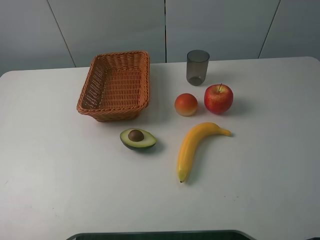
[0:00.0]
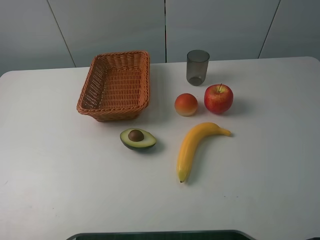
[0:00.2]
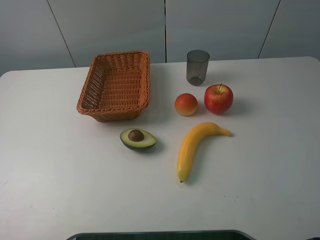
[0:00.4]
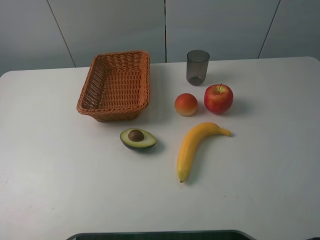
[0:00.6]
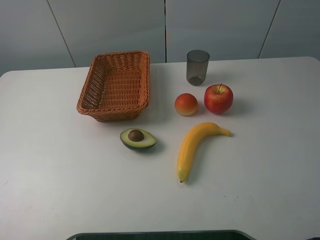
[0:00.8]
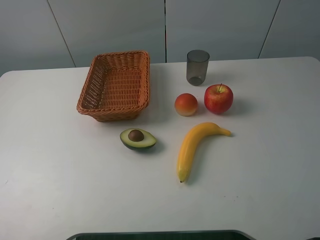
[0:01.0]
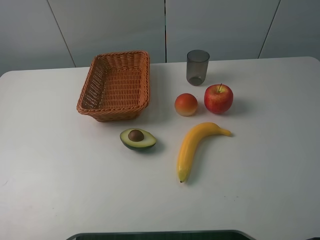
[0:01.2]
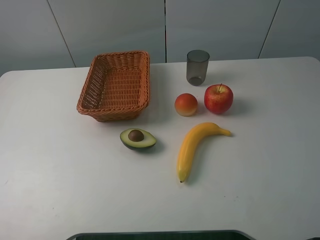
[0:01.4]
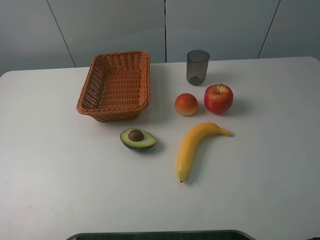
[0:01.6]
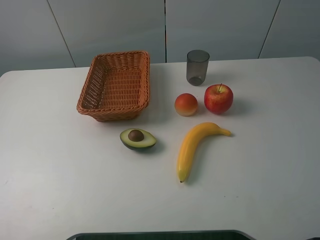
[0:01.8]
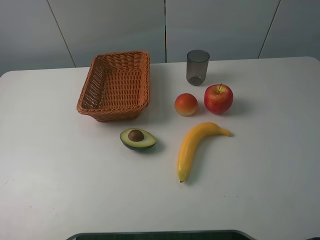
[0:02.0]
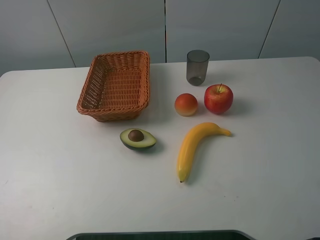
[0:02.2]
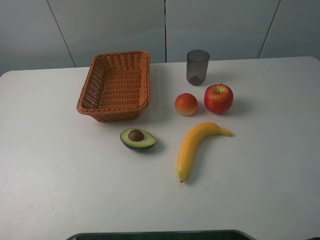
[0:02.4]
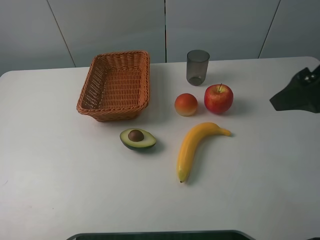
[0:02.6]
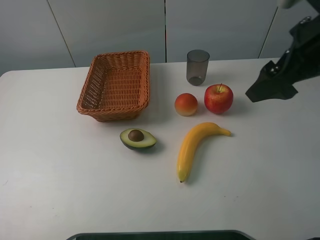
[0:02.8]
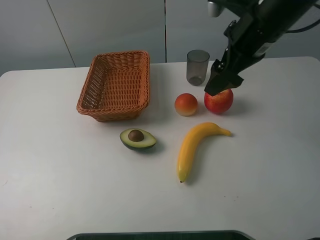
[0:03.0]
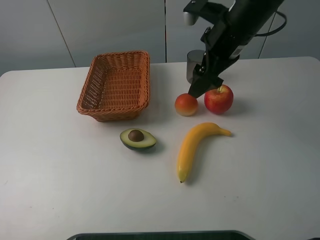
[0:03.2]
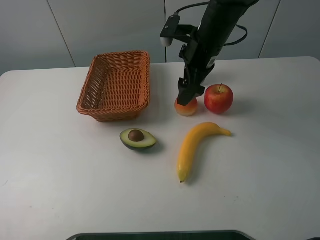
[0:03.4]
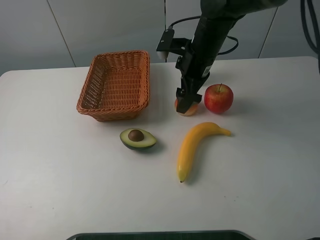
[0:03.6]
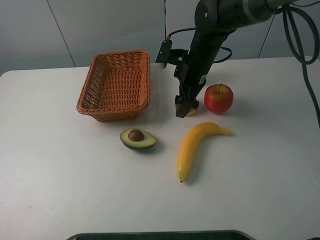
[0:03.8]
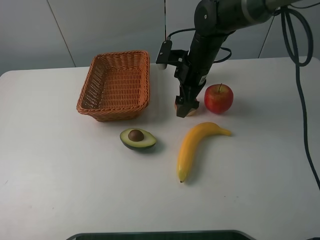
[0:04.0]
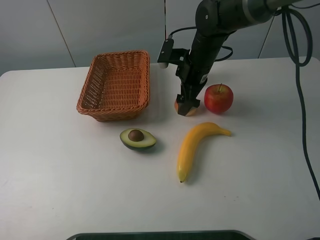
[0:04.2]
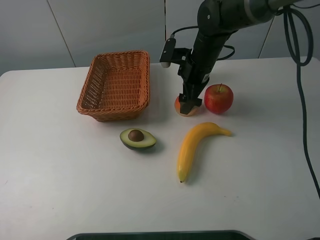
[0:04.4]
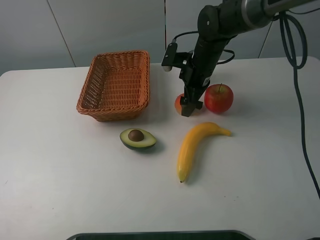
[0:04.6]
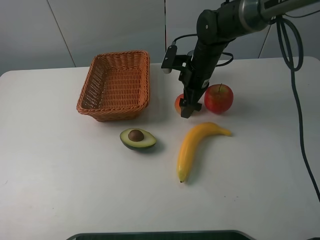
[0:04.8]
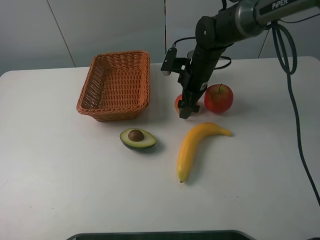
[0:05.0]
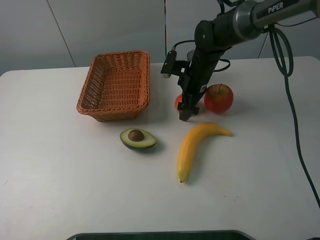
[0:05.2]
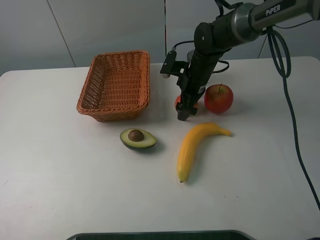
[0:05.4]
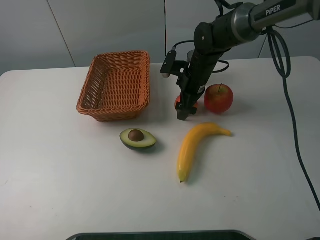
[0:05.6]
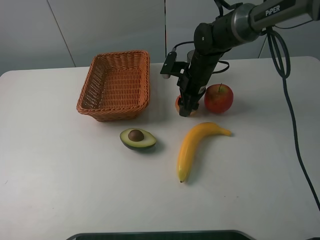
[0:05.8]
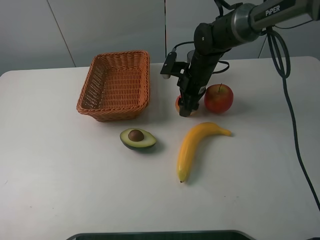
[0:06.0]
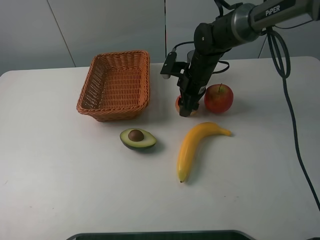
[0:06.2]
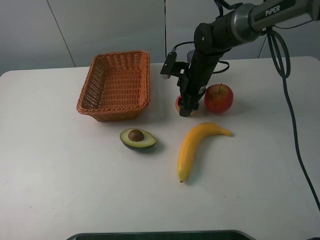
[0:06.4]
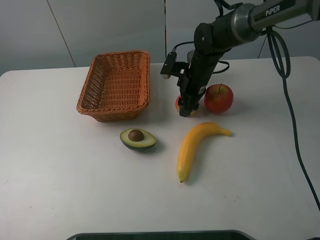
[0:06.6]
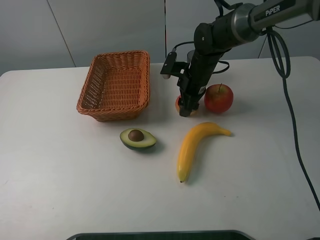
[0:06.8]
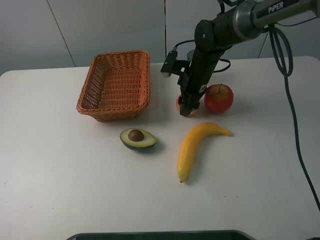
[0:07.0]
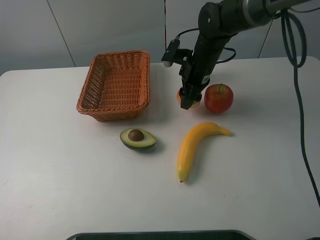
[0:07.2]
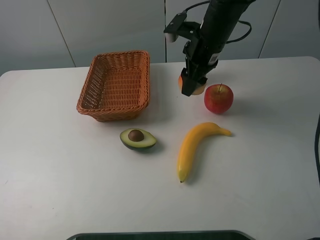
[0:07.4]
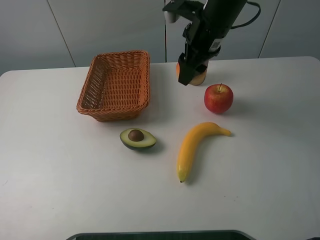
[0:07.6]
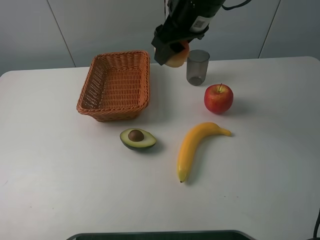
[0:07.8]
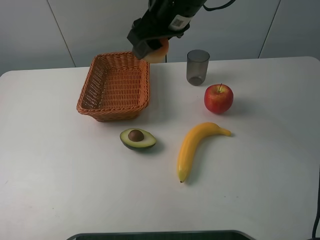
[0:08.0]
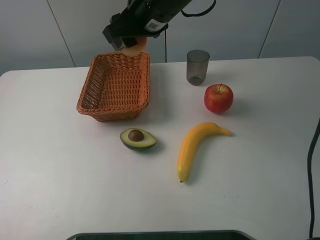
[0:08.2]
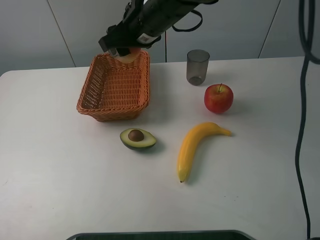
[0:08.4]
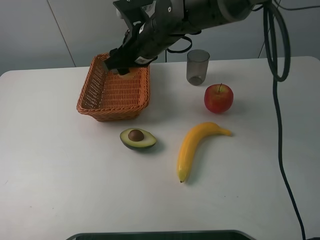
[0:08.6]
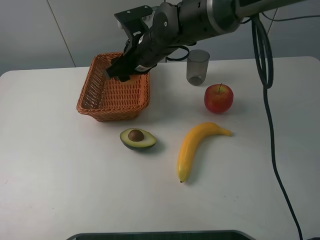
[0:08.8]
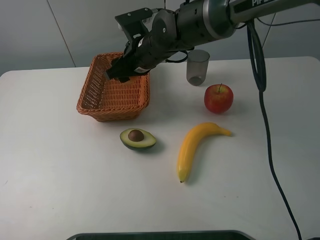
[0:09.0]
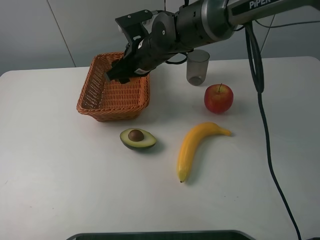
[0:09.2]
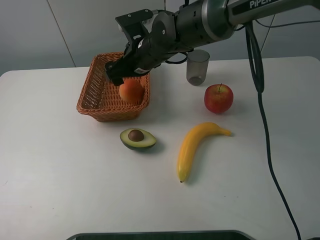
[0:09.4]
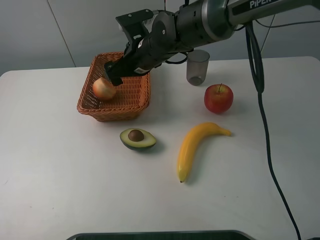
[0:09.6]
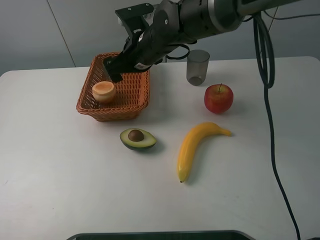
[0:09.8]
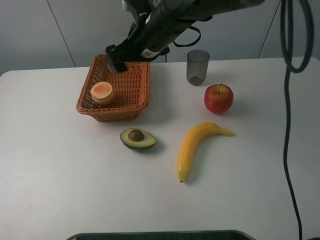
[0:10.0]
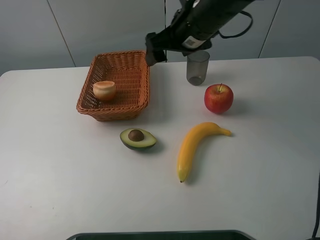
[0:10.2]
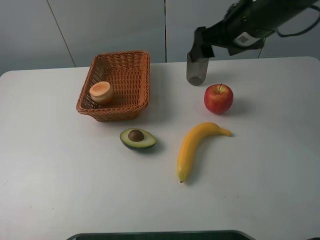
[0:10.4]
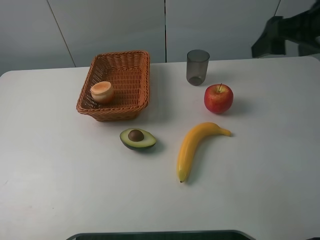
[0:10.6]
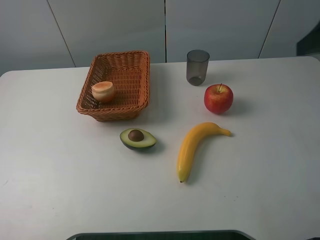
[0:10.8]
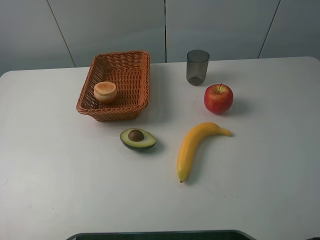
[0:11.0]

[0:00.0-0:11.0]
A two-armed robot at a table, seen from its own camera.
0:00.0 to 0:01.6: Both grippers stay put.
0:01.6 to 0:03.2: The right gripper shifts about 35 cm forward and to the left.
0:03.2 to 0:04.8: The right gripper travels downward and forward by about 15 cm.
0:04.8 to 0:06.2: The right gripper closes up.
0:06.2 to 0:07.8: The right gripper shifts about 20 cm upward.
0:07.8 to 0:09.4: The right gripper shifts roughly 15 cm downward and to the left, and opens its fingers.
0:09.4 to 0:11.0: The right gripper heads to the right, backward and upward, covering roughly 40 cm.

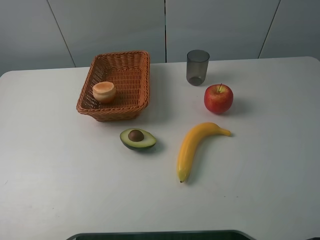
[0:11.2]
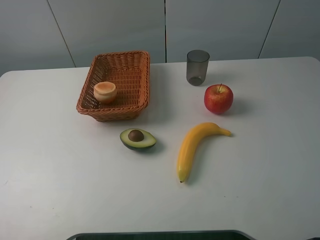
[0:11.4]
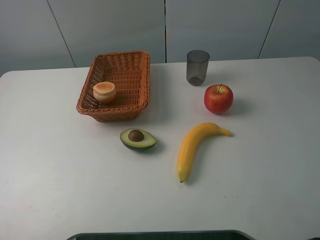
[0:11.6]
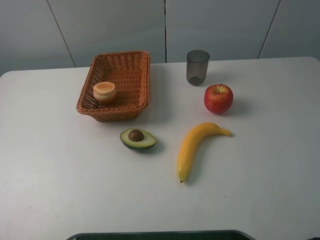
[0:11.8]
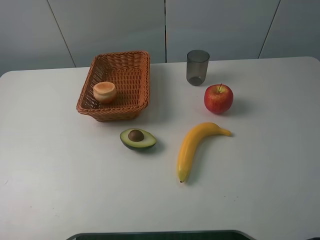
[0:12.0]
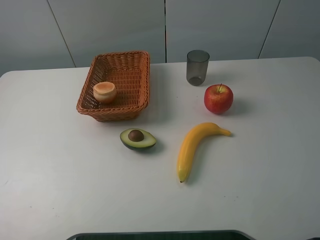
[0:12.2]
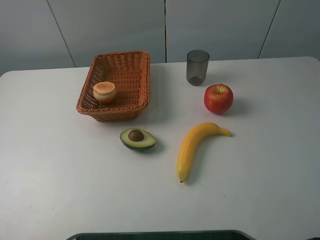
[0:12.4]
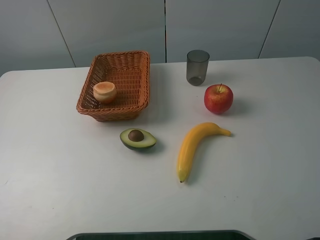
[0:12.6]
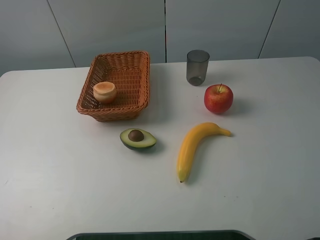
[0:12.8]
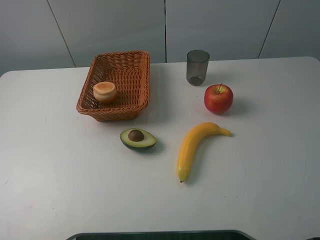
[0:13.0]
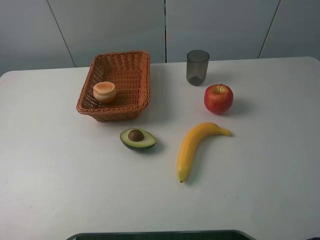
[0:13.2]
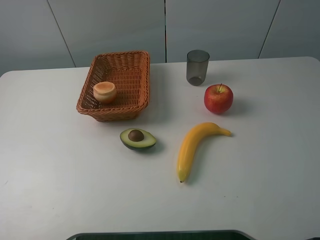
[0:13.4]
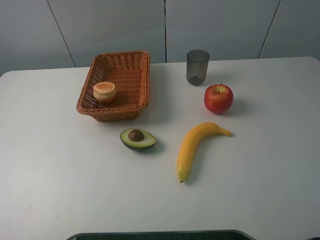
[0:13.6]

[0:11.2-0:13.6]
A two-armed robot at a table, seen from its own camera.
0:12.4 to 0:13.6: Neither gripper changes place.

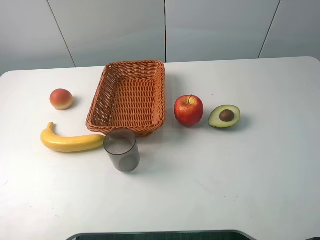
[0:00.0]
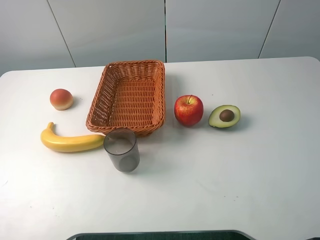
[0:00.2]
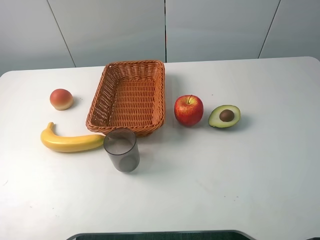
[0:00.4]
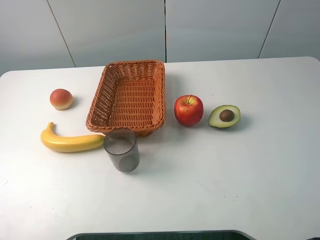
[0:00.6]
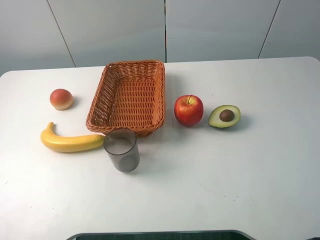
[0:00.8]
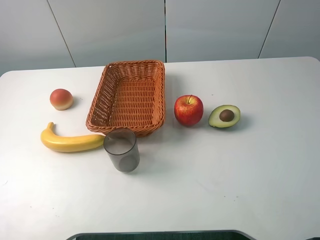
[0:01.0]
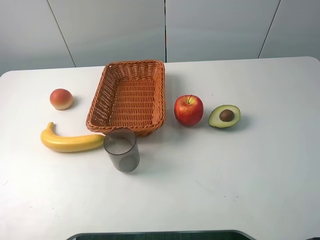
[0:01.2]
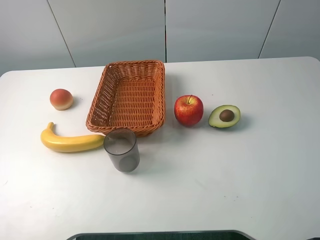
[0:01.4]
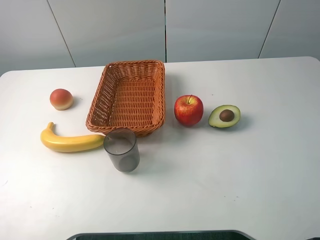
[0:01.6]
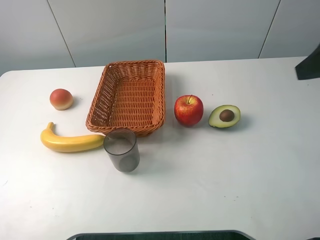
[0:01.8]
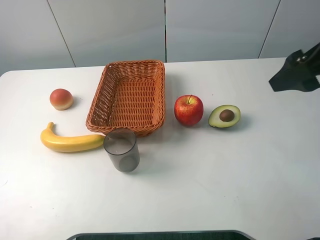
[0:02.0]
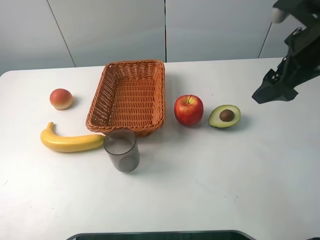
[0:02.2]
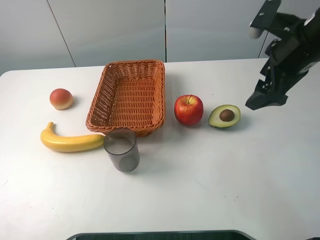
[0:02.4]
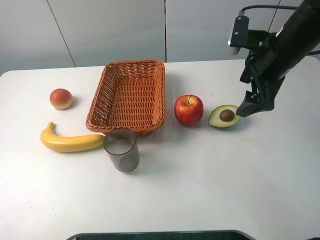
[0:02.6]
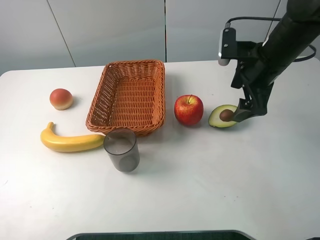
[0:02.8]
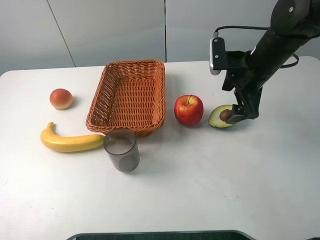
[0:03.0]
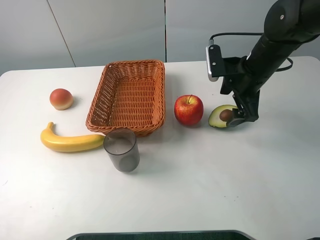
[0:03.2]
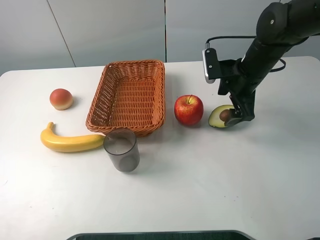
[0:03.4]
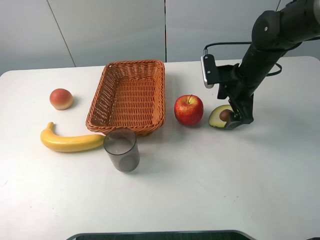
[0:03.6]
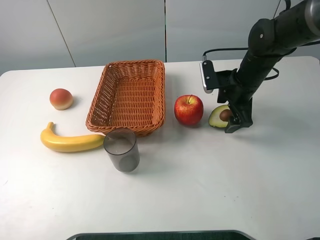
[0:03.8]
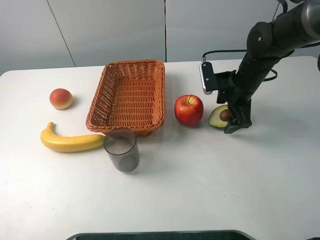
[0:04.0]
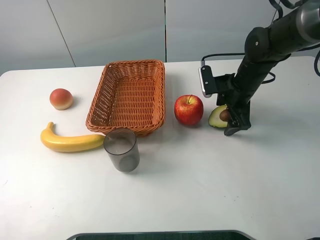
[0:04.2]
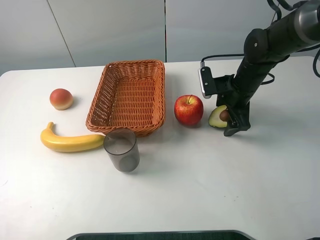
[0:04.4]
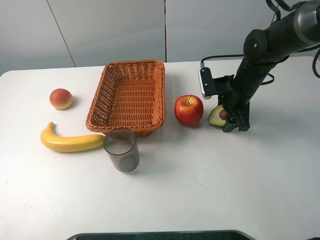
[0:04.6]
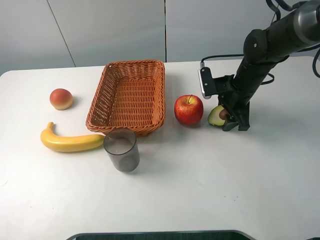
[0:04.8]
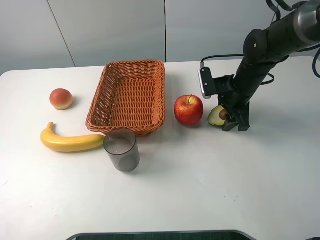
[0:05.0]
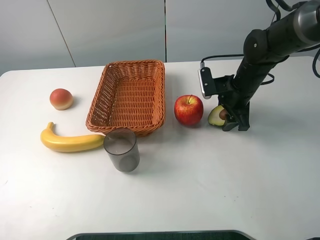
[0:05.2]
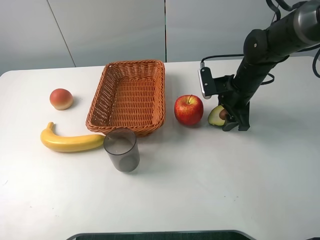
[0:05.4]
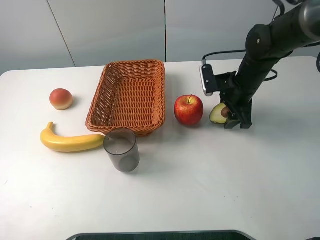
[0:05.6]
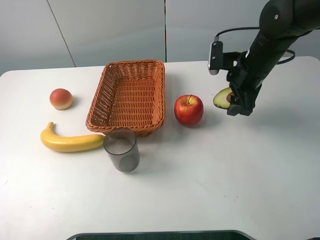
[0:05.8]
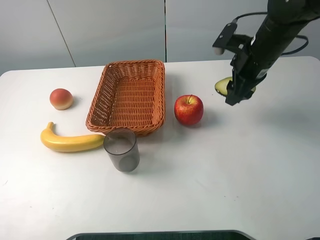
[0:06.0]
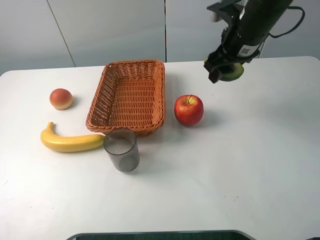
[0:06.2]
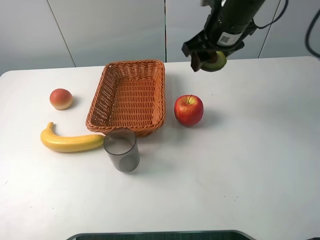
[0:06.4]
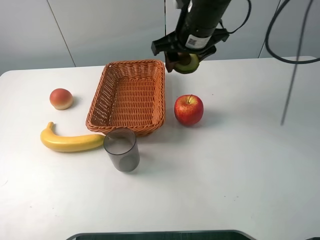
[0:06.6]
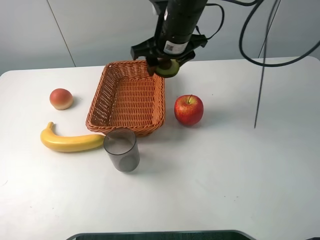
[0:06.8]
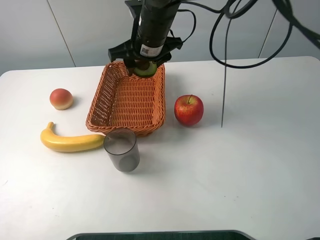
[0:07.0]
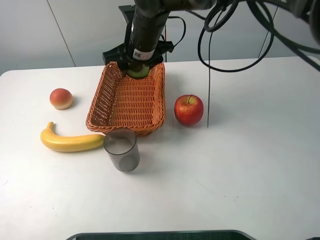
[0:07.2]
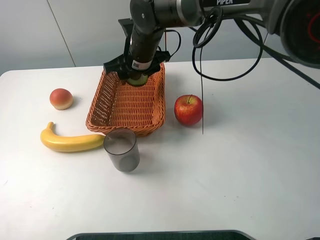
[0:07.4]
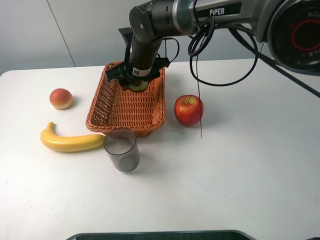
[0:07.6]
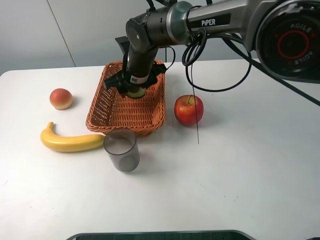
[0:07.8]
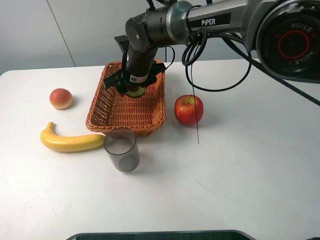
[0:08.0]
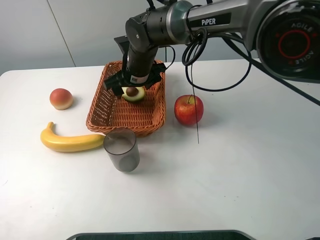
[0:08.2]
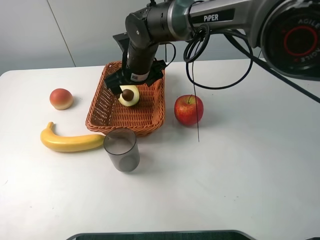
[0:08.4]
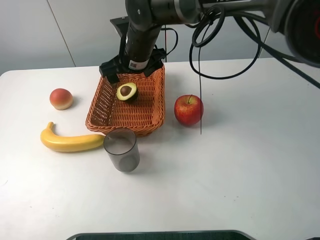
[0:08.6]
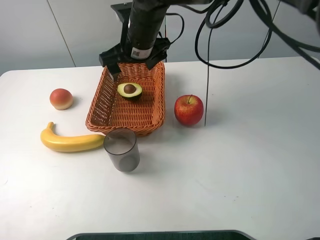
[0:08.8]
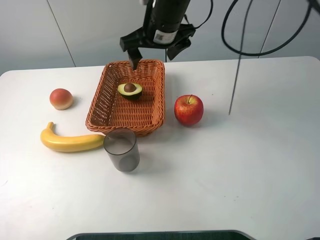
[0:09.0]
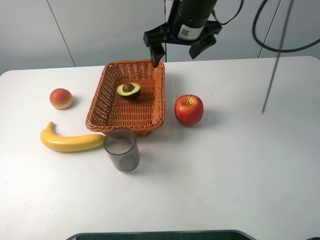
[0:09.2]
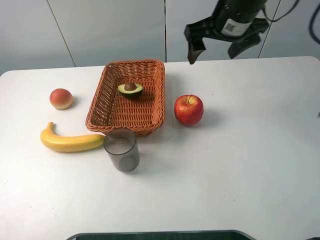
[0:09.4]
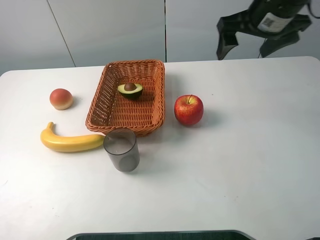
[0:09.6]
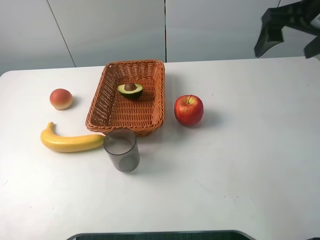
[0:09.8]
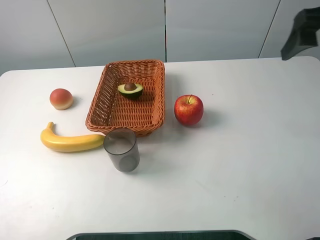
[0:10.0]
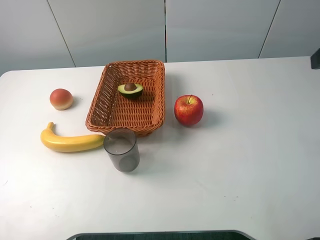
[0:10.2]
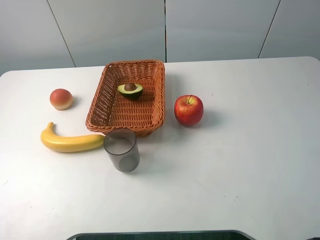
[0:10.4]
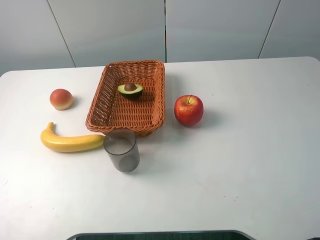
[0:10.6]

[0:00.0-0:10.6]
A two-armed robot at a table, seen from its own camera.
0:01.6 to 0:03.0: The right gripper goes some 30 cm forward, downward and to the left.
0:03.0 to 0:04.6: The right gripper moves downward, some 5 cm, and closes.
0:04.6 to 0:06.0: The right gripper travels upward by about 10 cm.
0:06.0 to 0:07.6: The right gripper travels to the left by roughly 25 cm.
0:07.6 to 0:09.0: The right gripper moves upward and to the right, about 10 cm, and opens.
0:09.0 to 0:10.6: The right gripper heads backward and to the right, covering approximately 40 cm.
